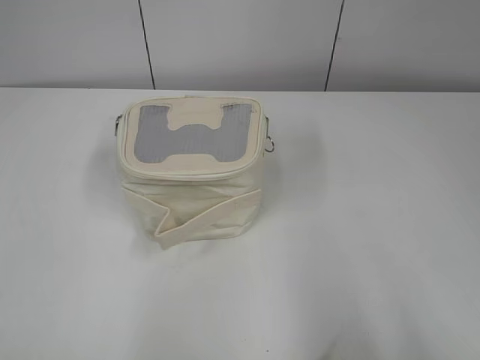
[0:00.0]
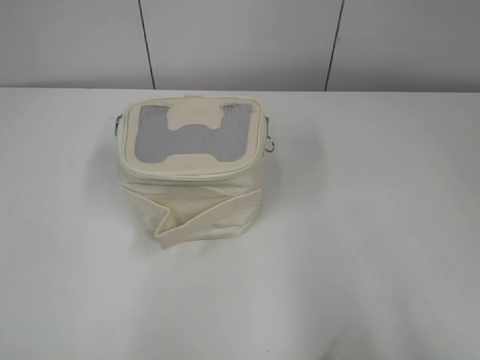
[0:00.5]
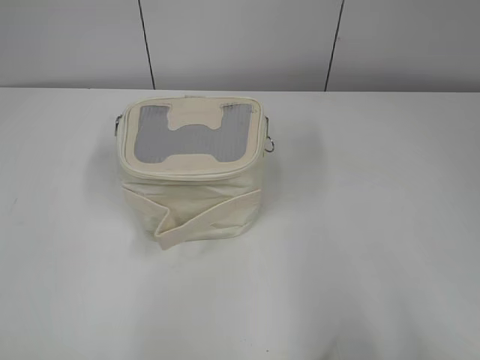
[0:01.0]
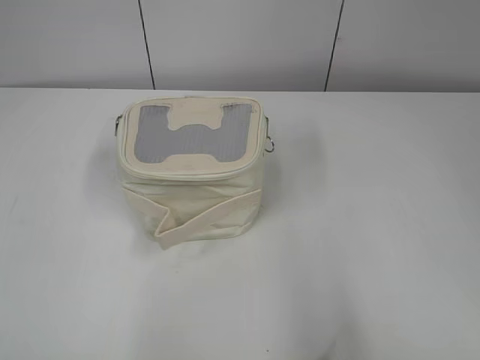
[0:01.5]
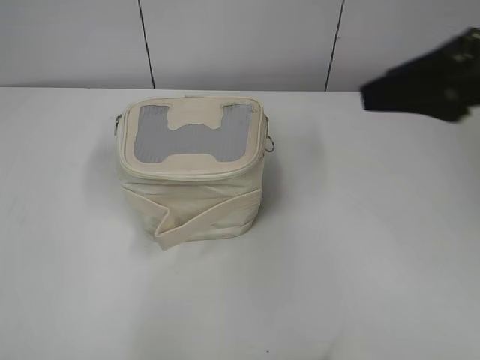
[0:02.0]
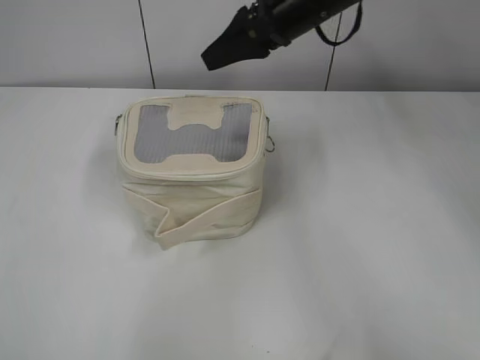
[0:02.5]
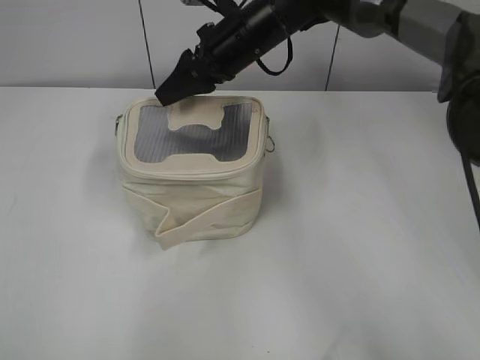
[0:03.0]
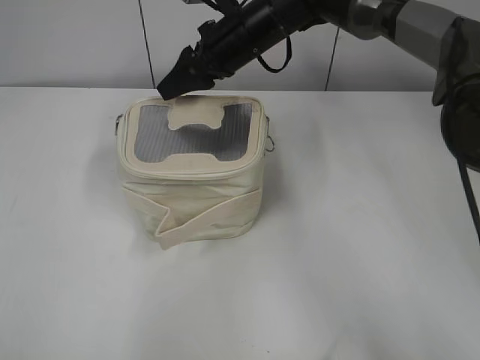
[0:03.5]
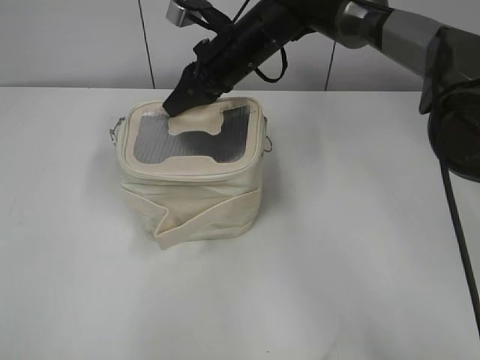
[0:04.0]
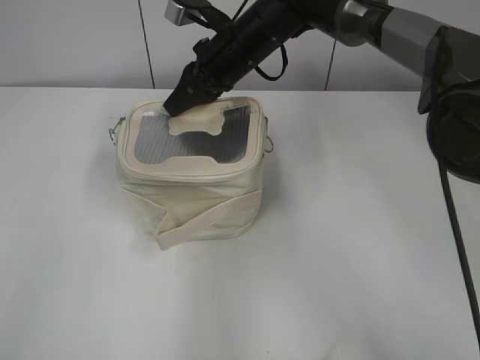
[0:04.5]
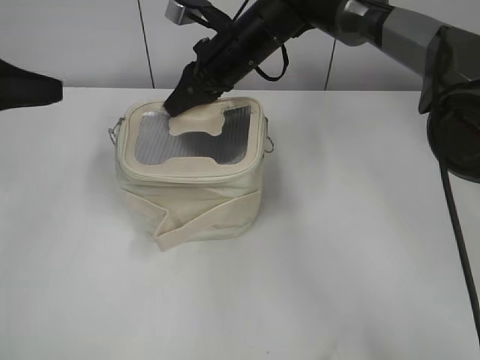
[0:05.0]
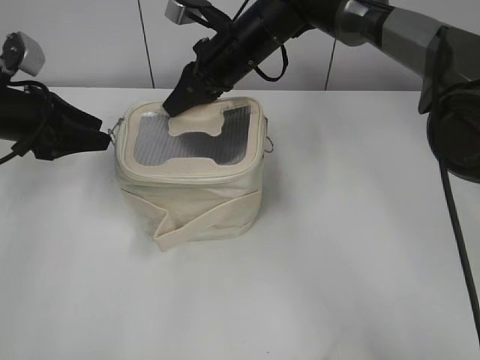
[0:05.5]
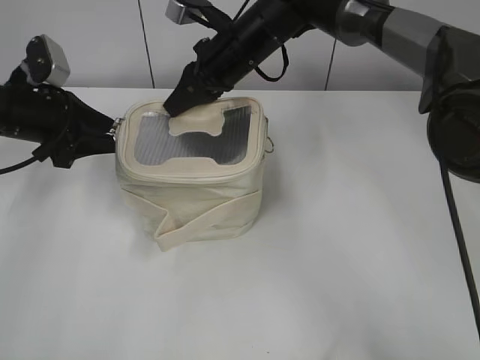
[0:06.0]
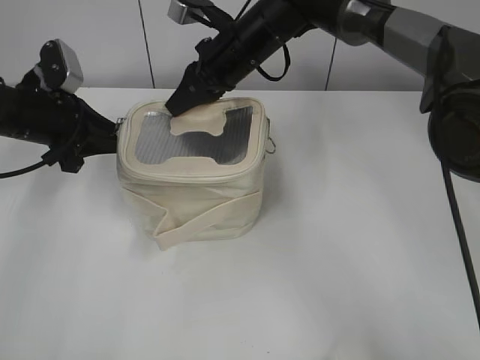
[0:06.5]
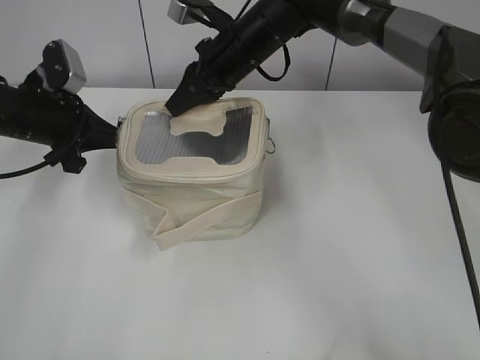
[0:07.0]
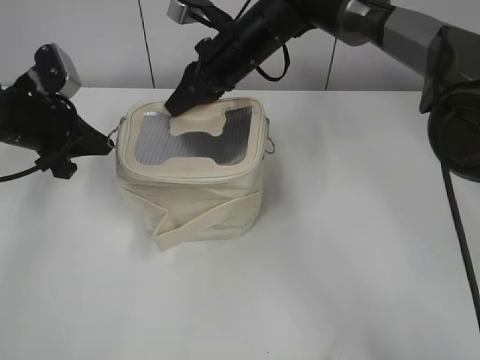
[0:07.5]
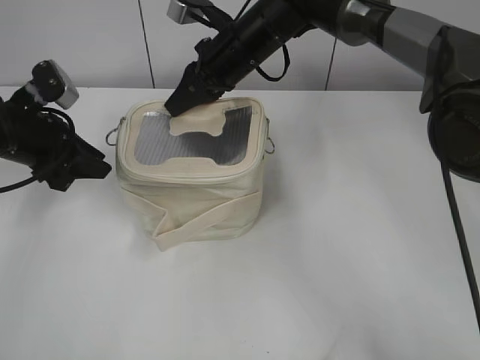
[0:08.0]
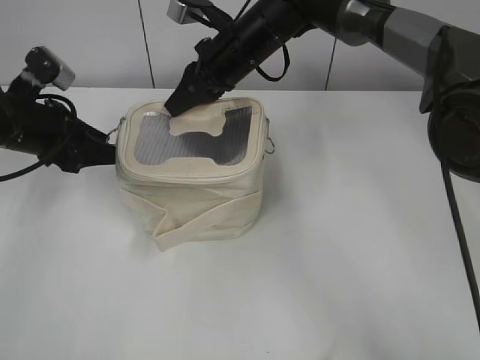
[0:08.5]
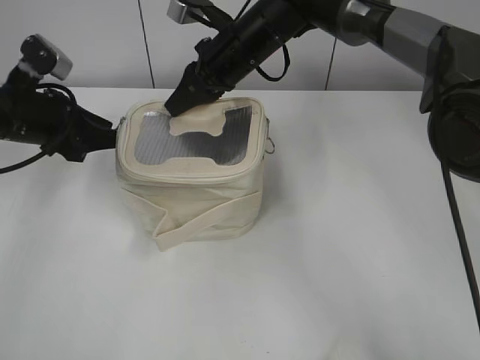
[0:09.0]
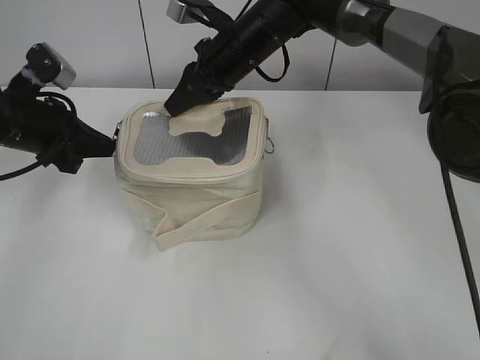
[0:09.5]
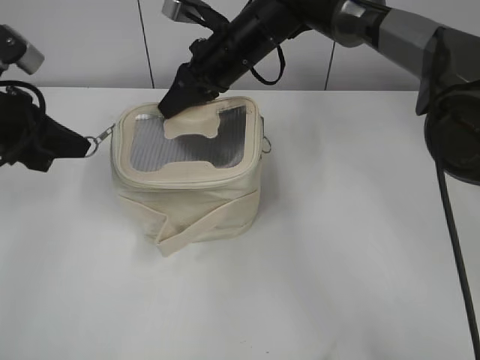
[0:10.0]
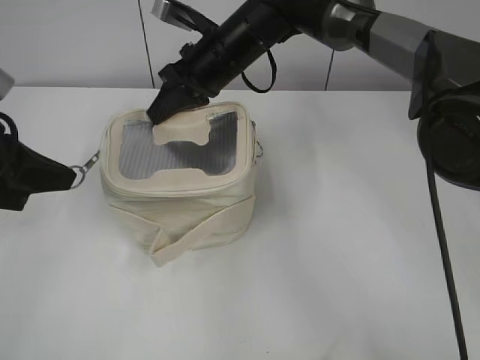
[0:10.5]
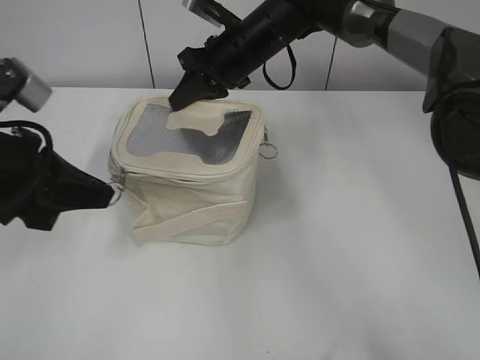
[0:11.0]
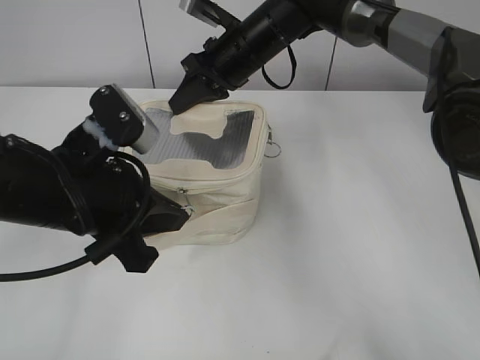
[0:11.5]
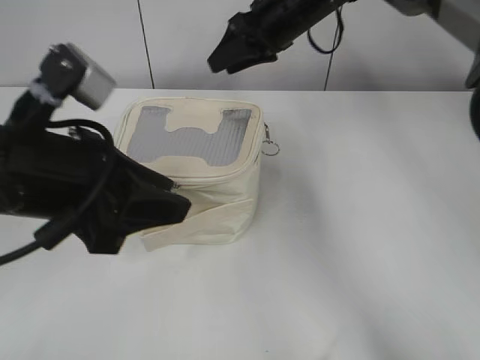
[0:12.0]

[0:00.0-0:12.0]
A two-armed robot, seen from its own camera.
Step, 0:00.0 to 0:11.5: Zip up the bag with your left hand.
0:02.0 to 0:04.0: The right gripper travels forward, to the left and downward by roughly 35 cm, and closes up.
0:04.0 to 0:06.0: The left gripper goes about 35 cm forward, and opens.
0:06.0 to 0:08.0: The left gripper closes its fingers.
0:08.0 to 0:10.0: The left gripper moves upward, some 5 cm, and closes.
0:10.0 to 0:12.0: The right gripper moves to the right, roughly 5 cm, and opens up, while the left gripper goes approximately 15 cm backward and to the right, and opens its fingers.

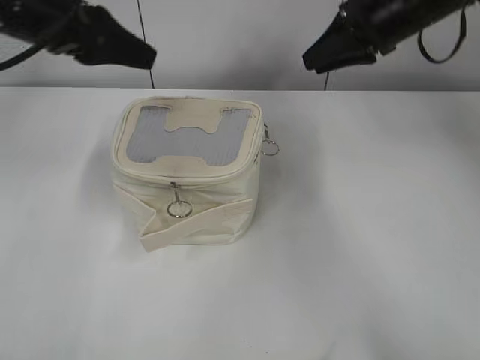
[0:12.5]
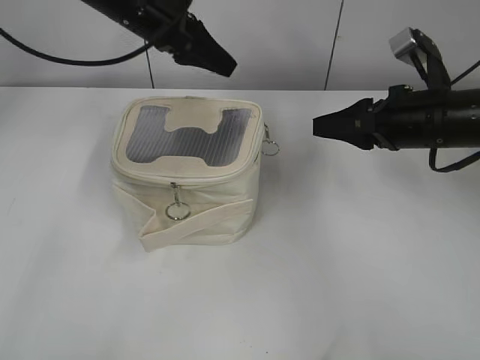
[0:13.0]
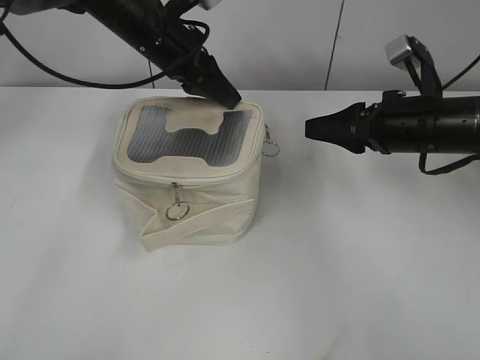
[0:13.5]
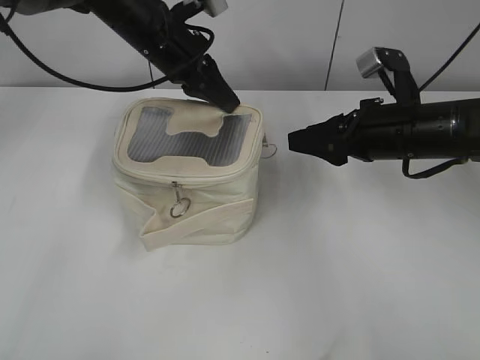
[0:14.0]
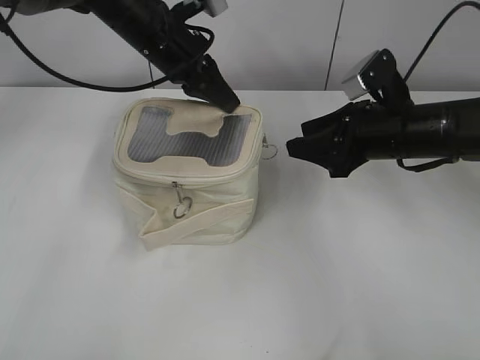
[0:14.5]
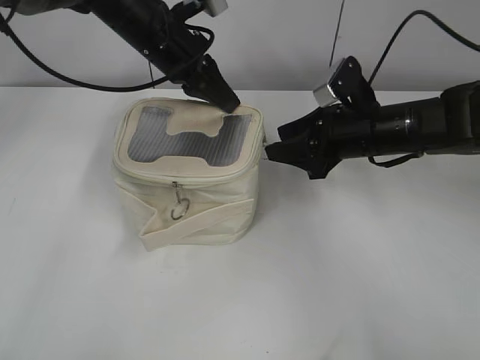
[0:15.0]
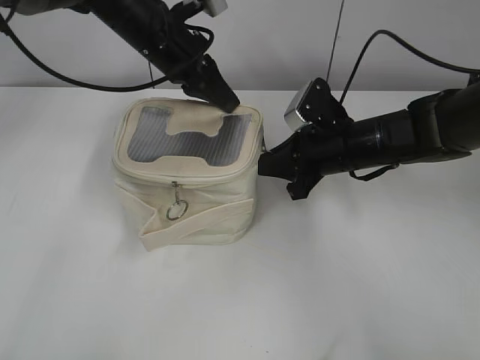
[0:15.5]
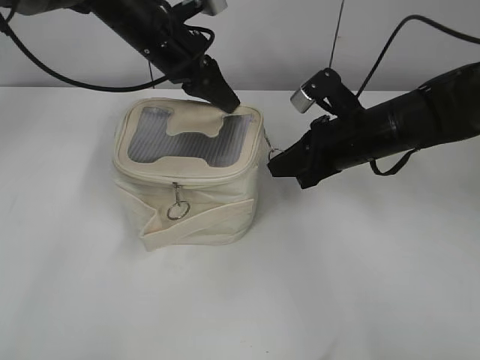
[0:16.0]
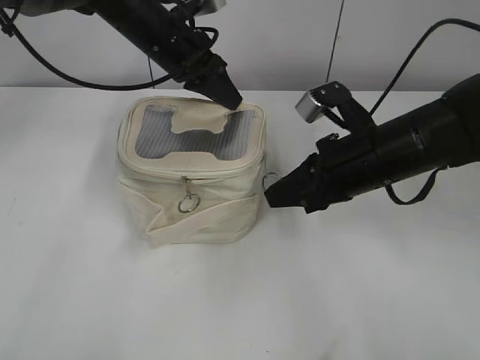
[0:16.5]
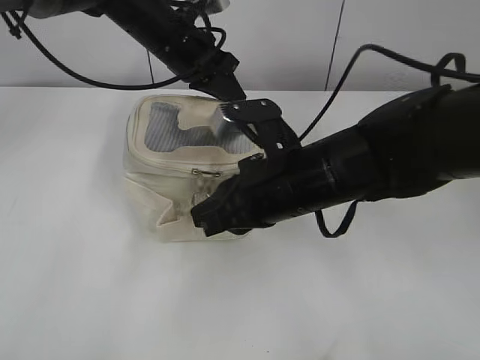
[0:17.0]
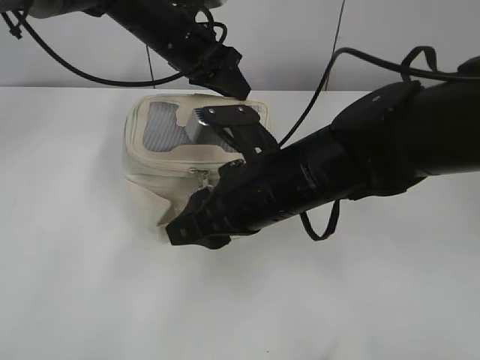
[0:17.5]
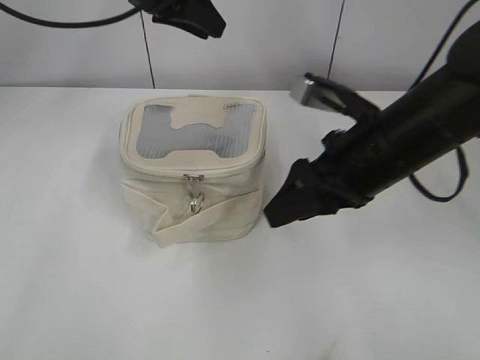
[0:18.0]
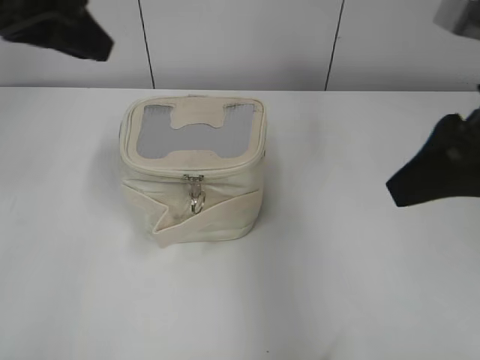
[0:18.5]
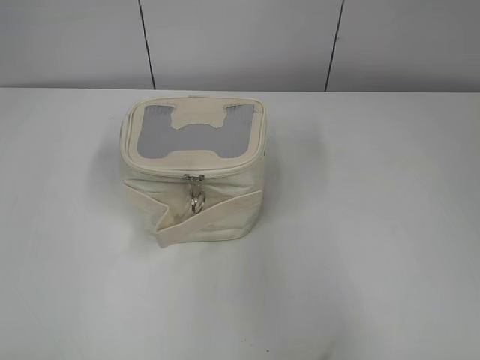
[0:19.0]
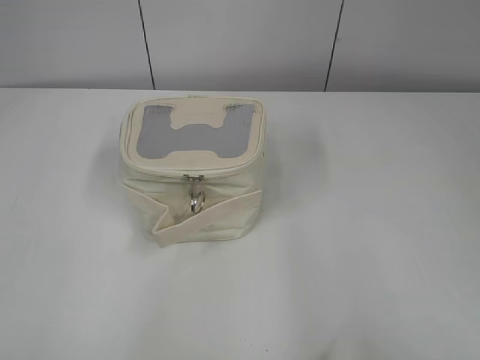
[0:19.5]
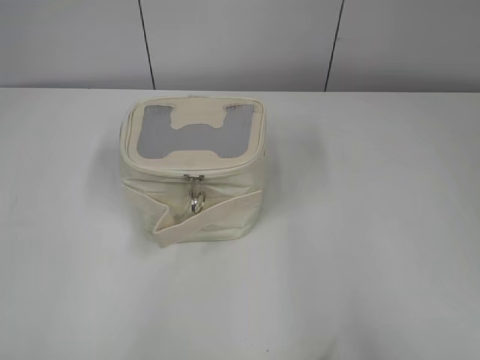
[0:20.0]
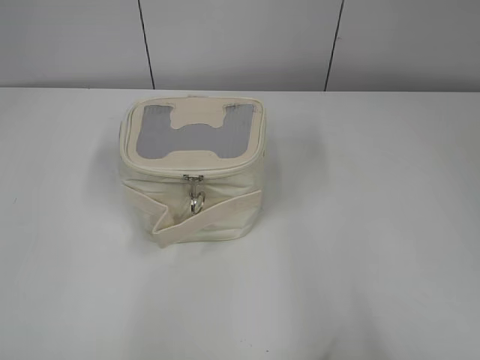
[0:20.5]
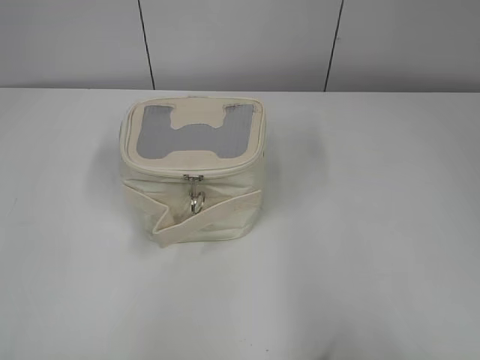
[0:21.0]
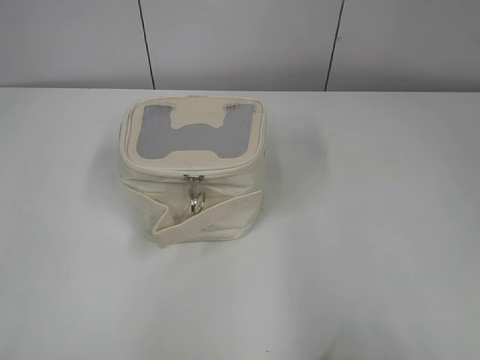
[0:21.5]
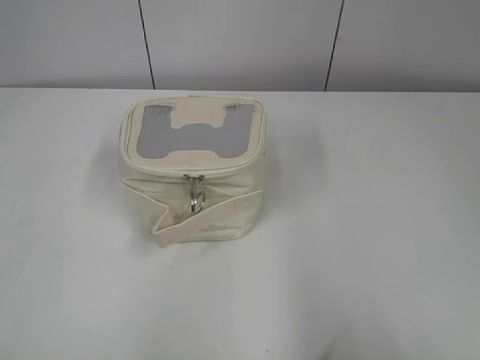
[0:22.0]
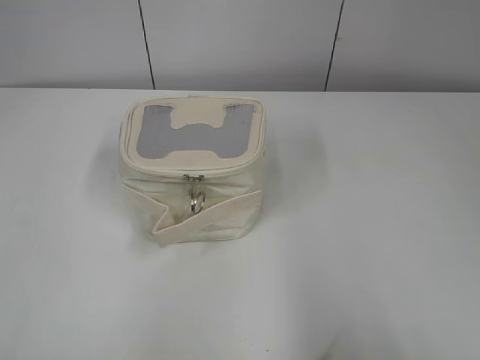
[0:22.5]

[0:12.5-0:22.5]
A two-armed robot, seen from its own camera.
Step, 0:12.5 to 0:17.0: Zip up the bag with your right hand.
0:12.5 to 0:14.5: The right gripper shifts some 15 cm backward and downward; the left gripper travels forward, to the right and downward by roughly 20 cm, and closes up.
0:14.5 to 0:16.5: The right gripper ends up approximately 5 cm from where it was, and closes up.
0:16.5 to 0:18.5: The right gripper heads upward and backward, covering some 15 cm, goes to the left and returns, roughly 10 cm each way, and opens up, while the left gripper shifts roughly 20 cm backward, upward and to the left, and opens up.
0:18.5 to 0:20.5: The left gripper travels backward and to the left by approximately 30 cm. The right gripper is displaced backward and to the right by some 25 cm.
